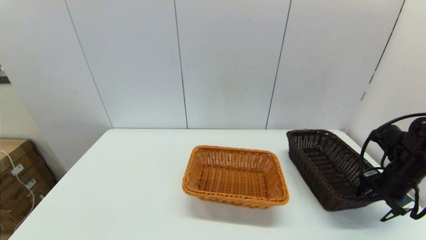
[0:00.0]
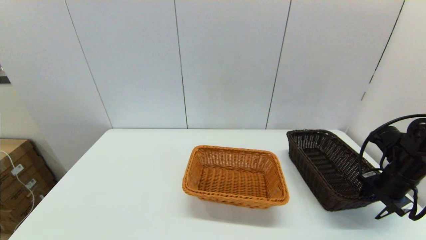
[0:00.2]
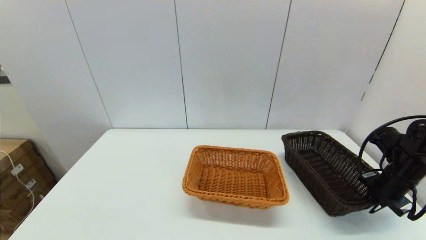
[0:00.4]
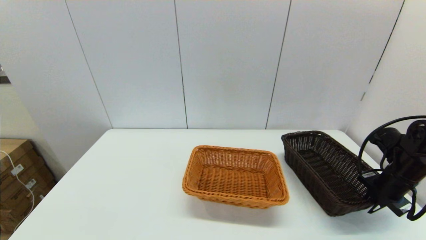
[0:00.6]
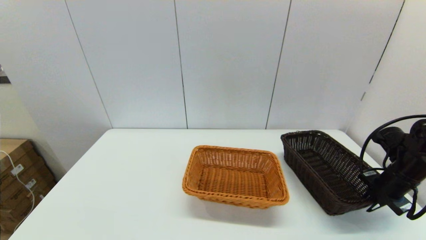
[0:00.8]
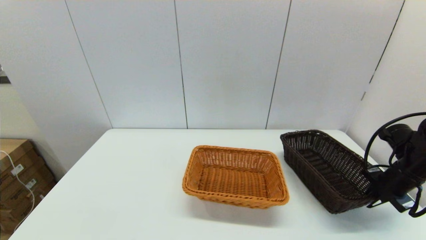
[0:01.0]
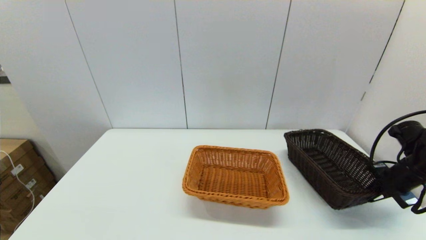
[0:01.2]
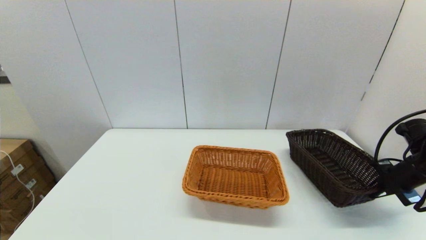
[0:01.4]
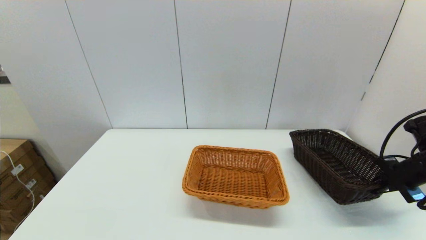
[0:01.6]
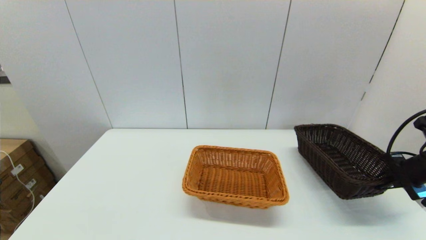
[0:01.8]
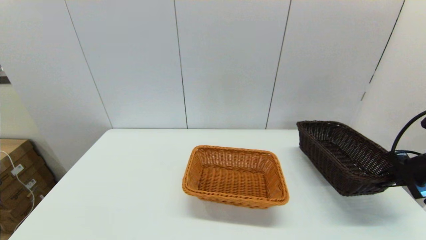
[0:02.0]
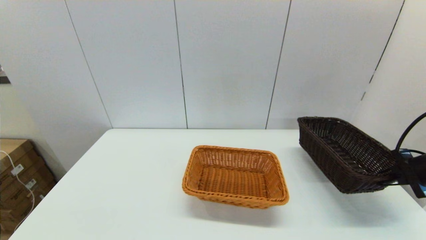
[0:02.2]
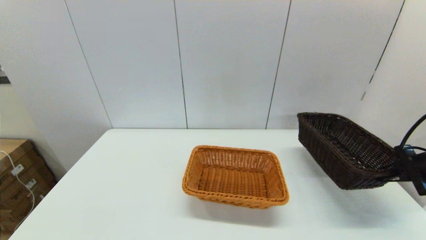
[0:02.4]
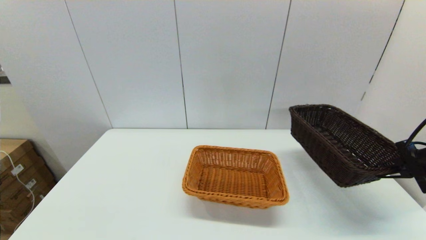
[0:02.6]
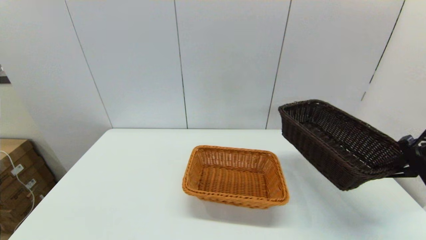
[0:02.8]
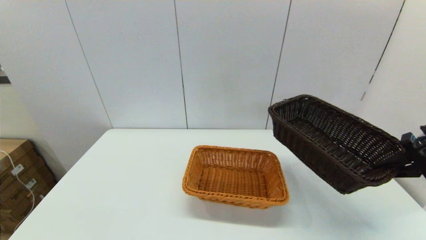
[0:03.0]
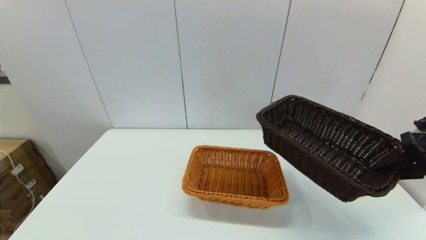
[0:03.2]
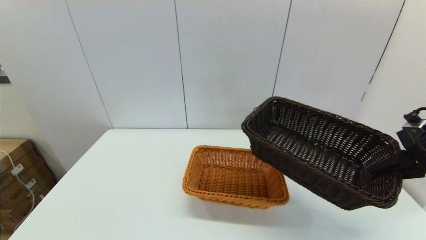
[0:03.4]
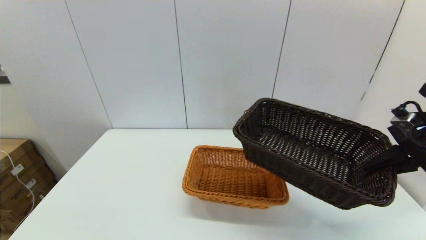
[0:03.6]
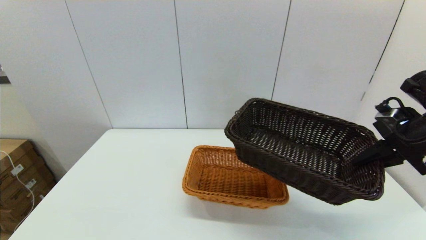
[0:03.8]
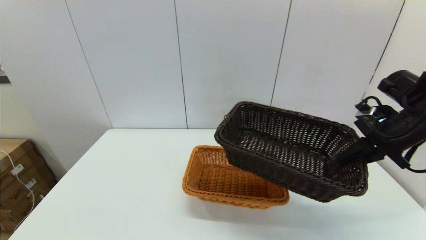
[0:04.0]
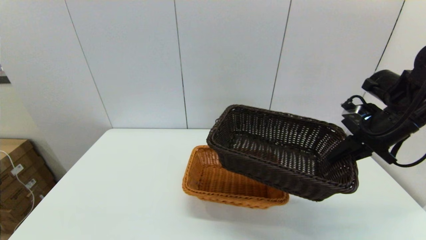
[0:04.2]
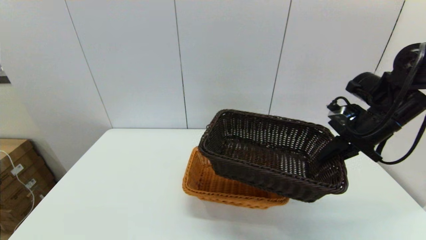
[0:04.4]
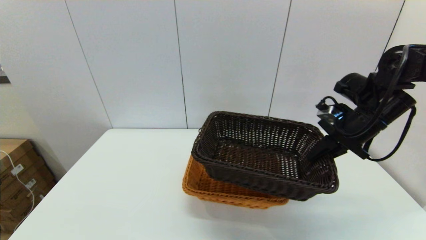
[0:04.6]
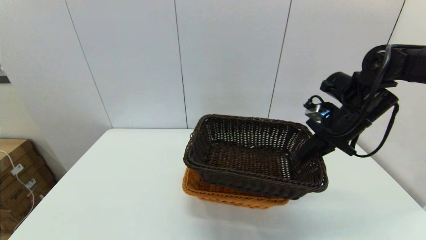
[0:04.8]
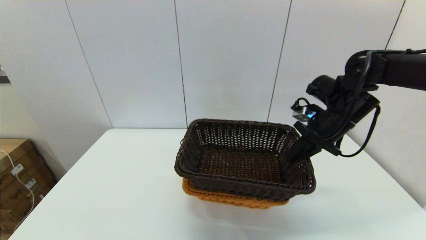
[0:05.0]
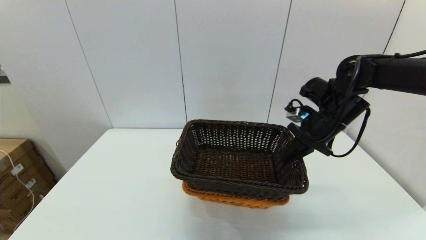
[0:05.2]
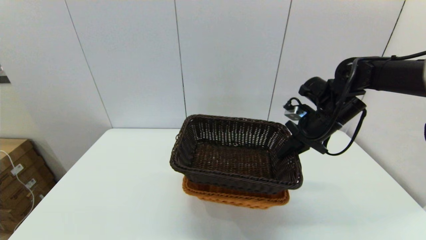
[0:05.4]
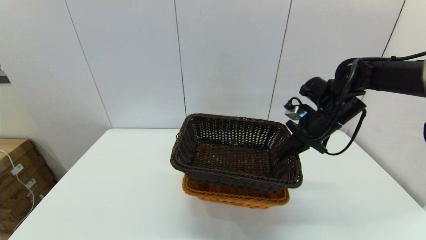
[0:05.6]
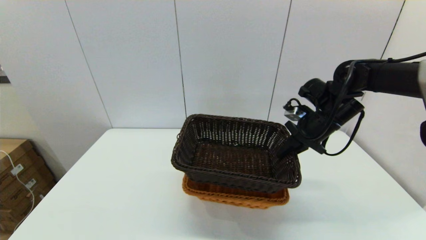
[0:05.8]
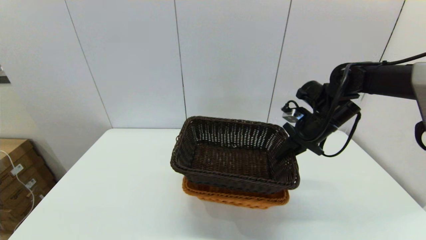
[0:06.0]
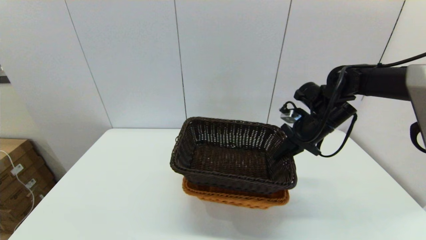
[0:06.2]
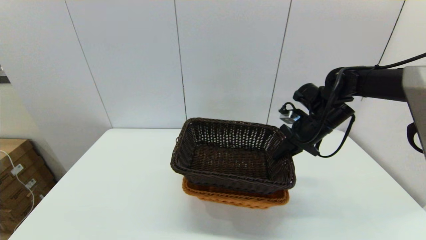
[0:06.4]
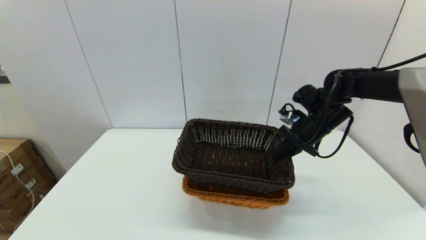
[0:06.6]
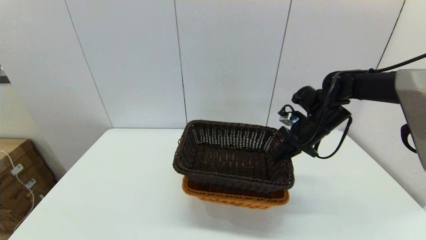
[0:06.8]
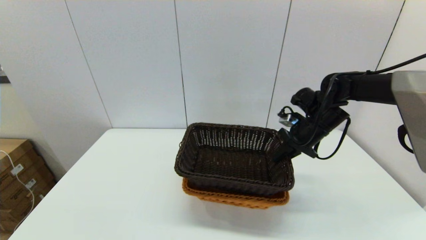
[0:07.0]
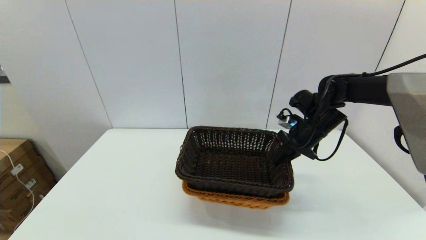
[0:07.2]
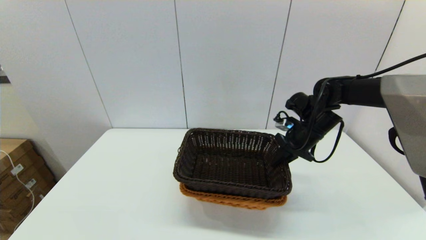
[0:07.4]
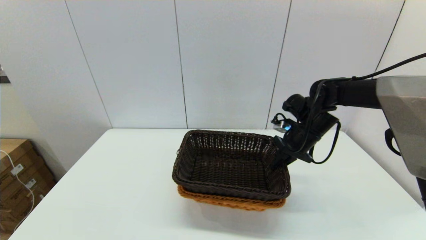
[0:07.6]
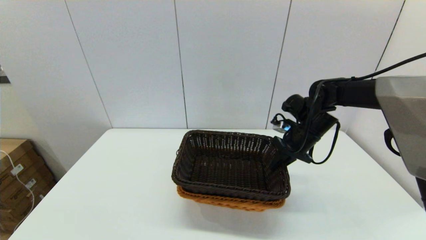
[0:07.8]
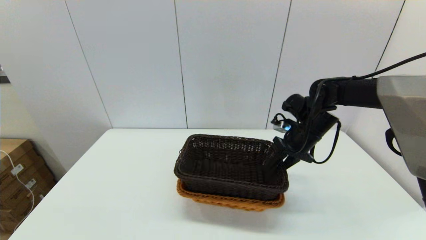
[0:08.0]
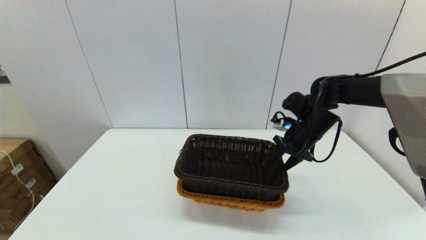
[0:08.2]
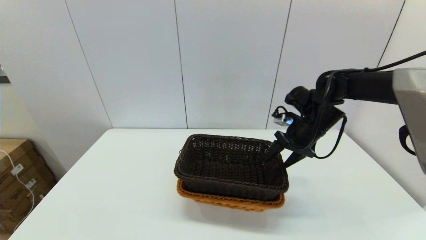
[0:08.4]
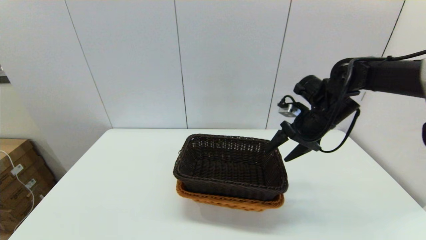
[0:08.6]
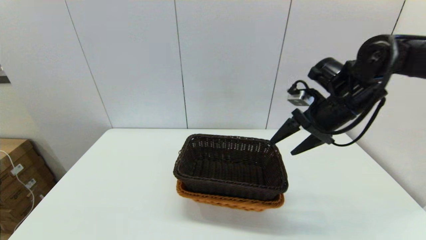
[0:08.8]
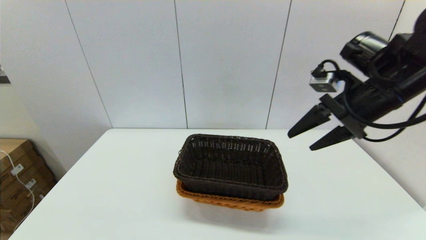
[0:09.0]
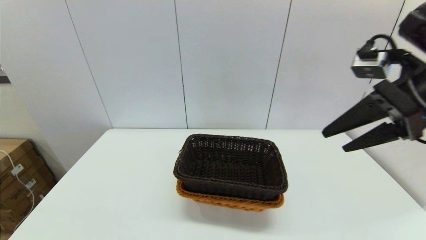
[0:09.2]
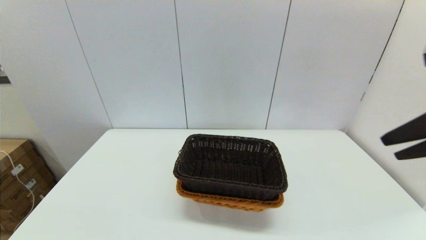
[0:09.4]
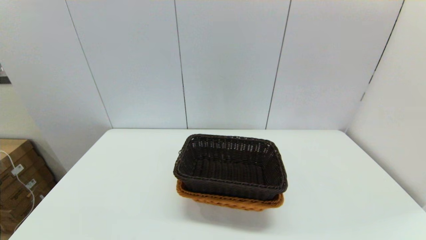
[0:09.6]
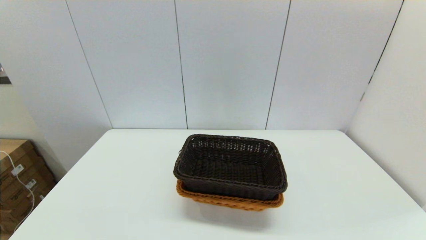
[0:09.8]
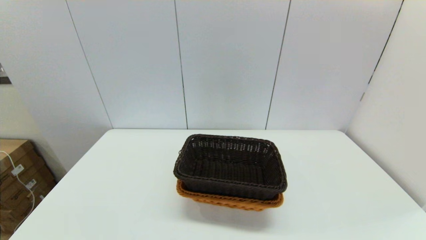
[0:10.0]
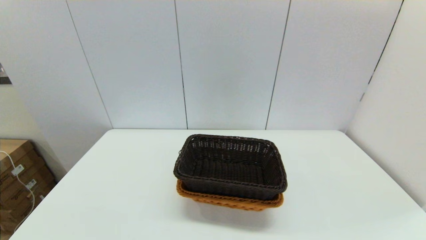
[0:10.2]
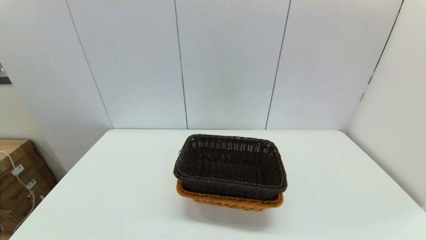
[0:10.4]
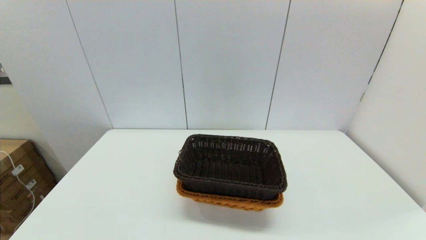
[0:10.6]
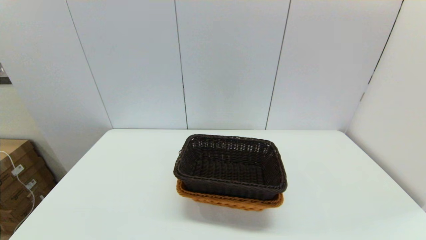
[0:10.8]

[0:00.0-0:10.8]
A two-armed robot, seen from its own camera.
Task of the whole recording: stack a basket on top of another basket.
Step, 0:01.4 to 0:08.8: Place the dark basket into the light color basket with the right gripper.
0:00.0 to 0:01.6: The right gripper changes place by roughly 5 cm, and closes its fingers.
0:01.6 to 0:03.0: The right gripper shifts approximately 10 cm upward.
0:03.0 to 0:04.6: The right gripper heads to the left and forward, covering approximately 15 cm.
0:04.6 to 0:06.2: The right gripper heads to the left and forward, covering roughly 5 cm.
0:06.2 to 0:07.8: The grippers make only small movements.
0:07.8 to 0:09.2: The right gripper is displaced upward and backward by approximately 25 cm, and opens up.
0:09.2 to 0:10.8: The right gripper heads backward, covering approximately 35 cm.

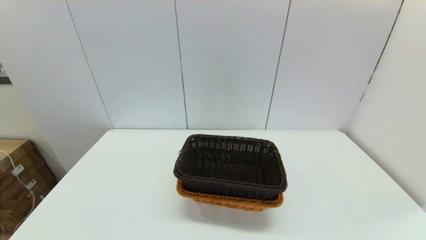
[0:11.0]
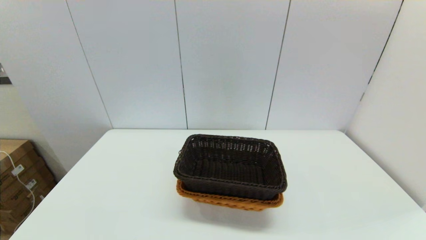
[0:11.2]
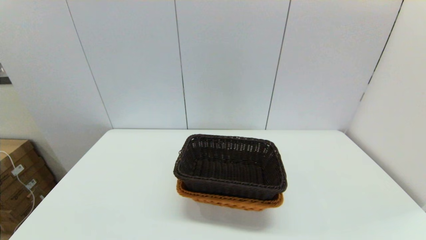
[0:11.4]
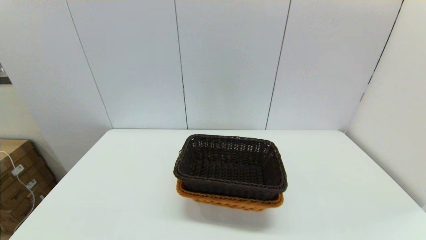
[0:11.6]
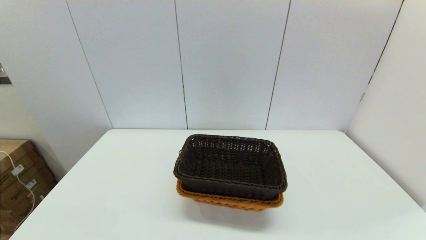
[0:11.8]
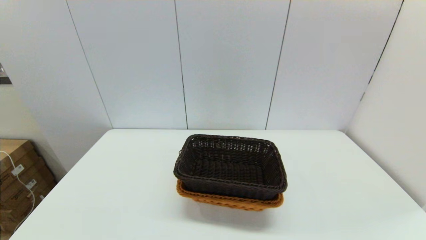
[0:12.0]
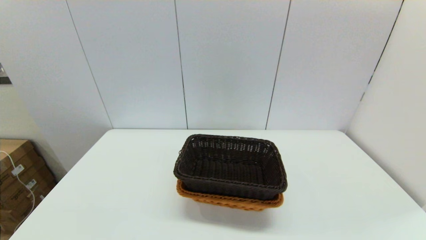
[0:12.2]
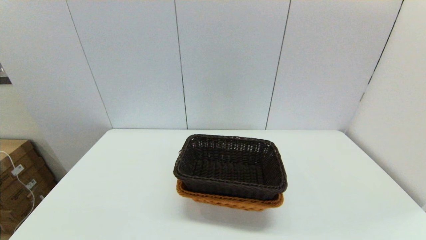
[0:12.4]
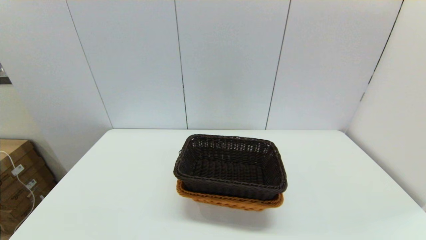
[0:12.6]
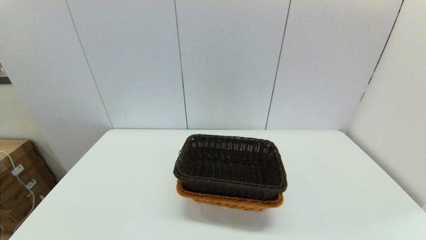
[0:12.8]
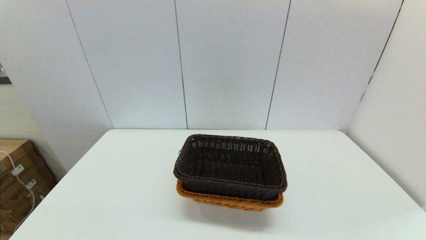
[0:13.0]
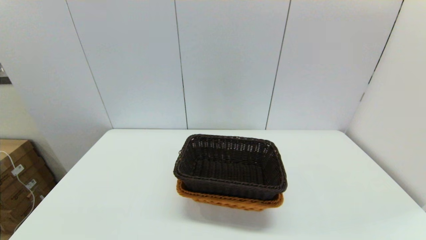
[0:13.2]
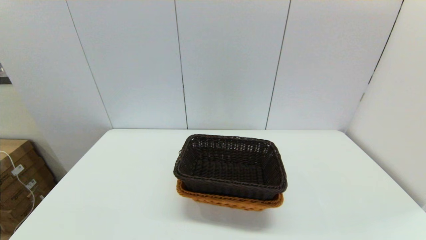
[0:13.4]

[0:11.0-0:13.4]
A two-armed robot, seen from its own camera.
Task of the whole recording: stack a basket on top of another basket.
0:12.2 to 0:13.4: Both grippers stay about where they are.

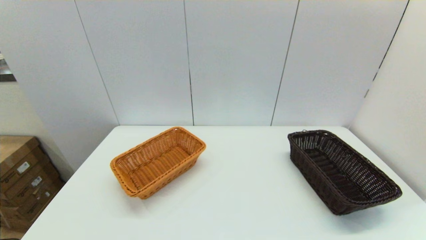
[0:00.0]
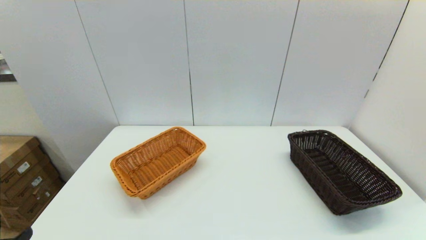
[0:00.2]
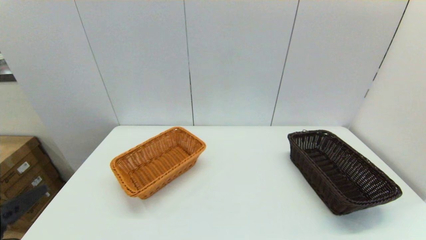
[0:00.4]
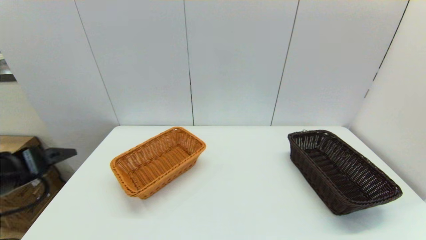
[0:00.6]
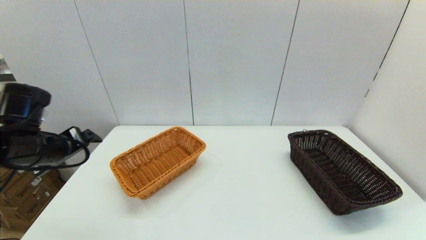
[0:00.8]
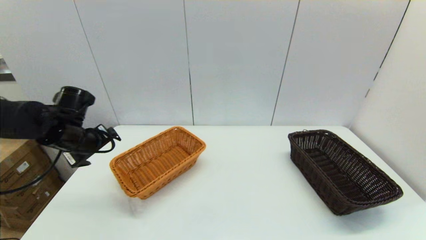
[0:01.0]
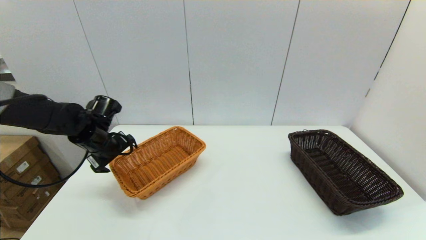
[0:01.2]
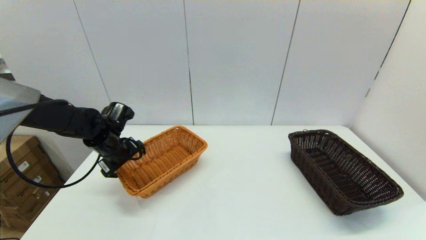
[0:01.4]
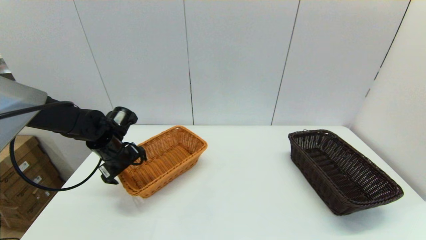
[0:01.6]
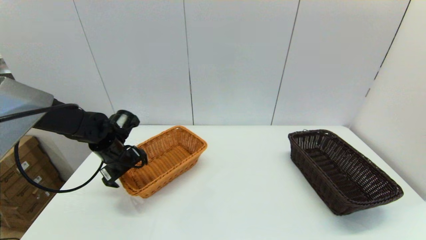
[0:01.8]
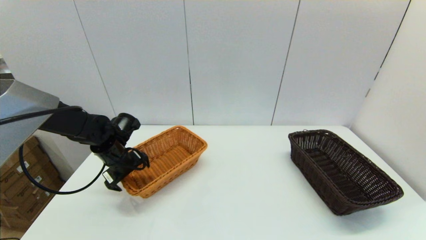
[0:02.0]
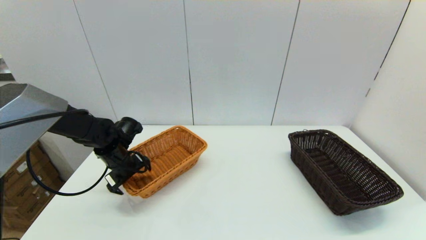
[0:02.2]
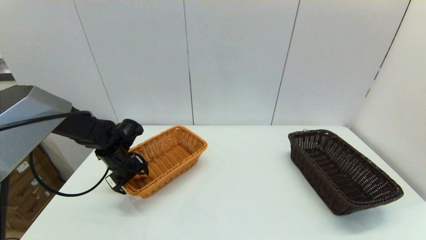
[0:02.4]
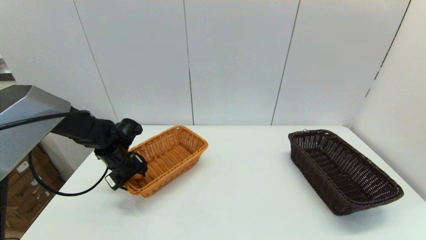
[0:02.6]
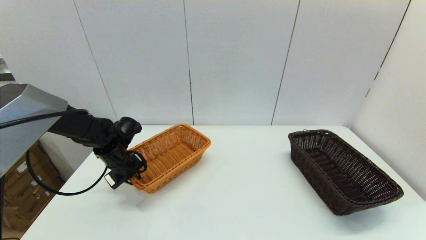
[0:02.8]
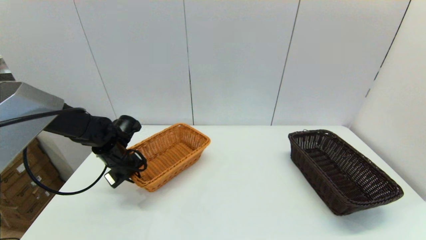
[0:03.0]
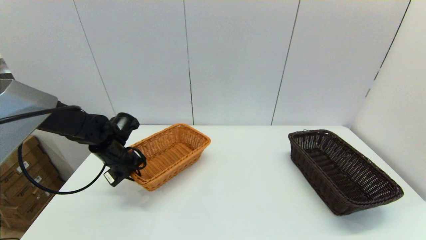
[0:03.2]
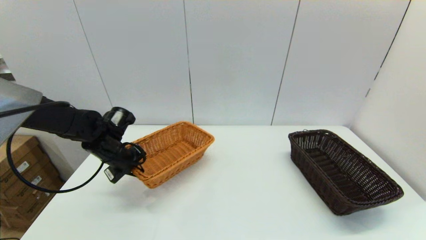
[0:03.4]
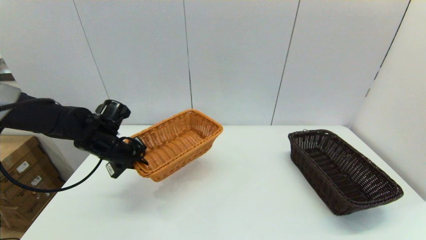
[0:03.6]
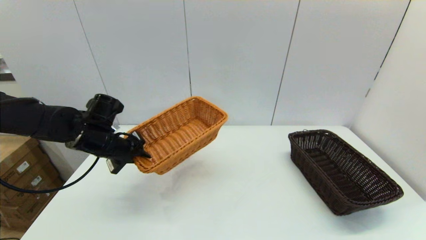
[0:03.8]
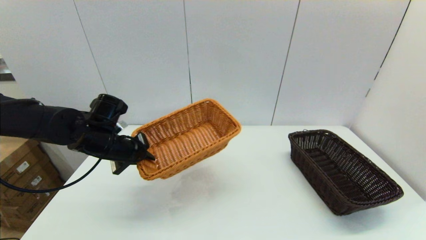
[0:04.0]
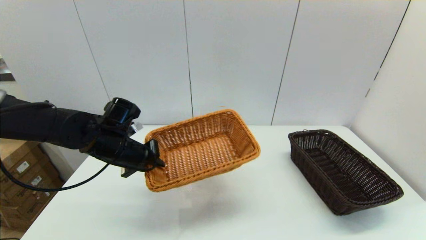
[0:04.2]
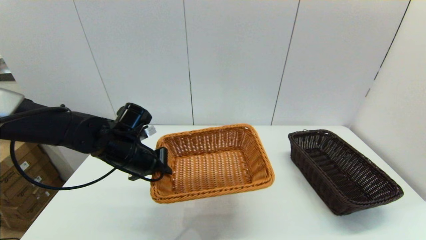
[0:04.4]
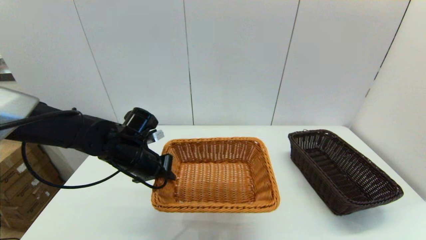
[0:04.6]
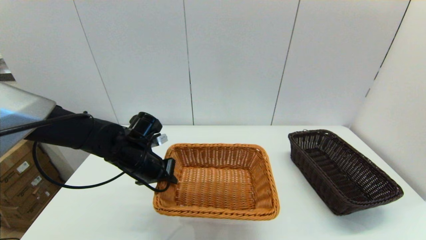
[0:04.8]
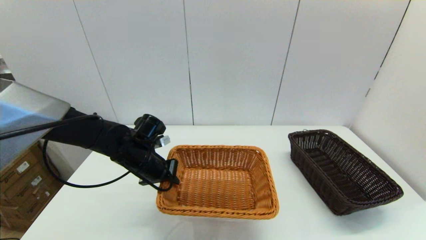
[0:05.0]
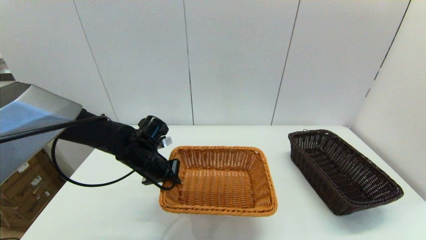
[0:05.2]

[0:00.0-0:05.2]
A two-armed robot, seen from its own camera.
Task of the whole recording: stack a basket on top of another basket.
Step, 0:00.0 to 0:03.0: Grasp the light basket with the left gripper.
0:00.0 to 0:01.8: The left gripper shifts some 35 cm forward.
0:01.8 to 0:03.4: The left gripper closes up.
0:03.4 to 0:05.2: The left gripper heads to the right, covering some 10 cm.
